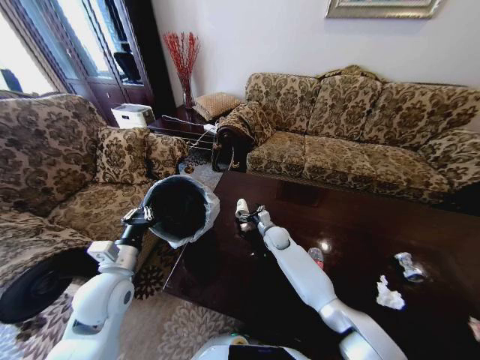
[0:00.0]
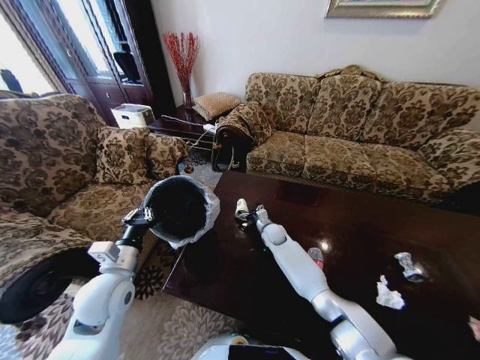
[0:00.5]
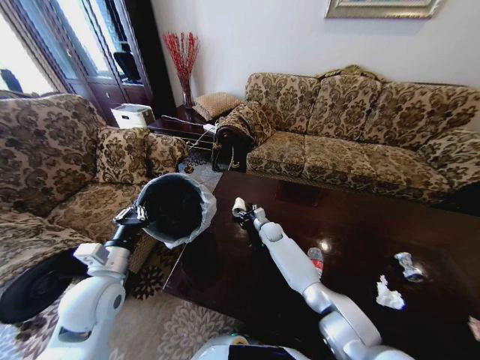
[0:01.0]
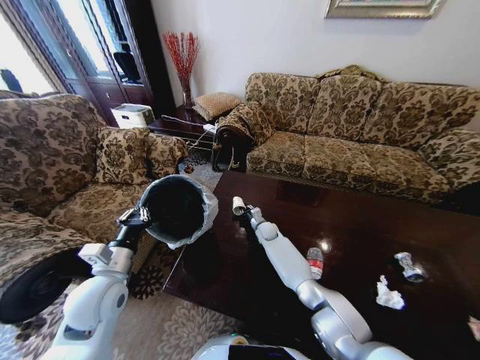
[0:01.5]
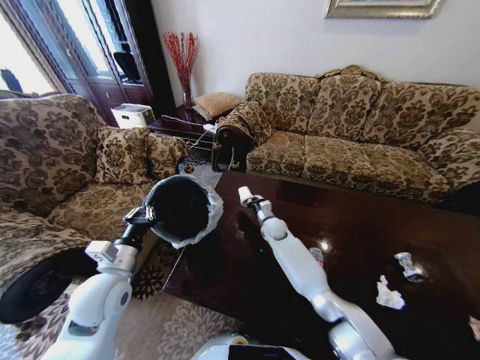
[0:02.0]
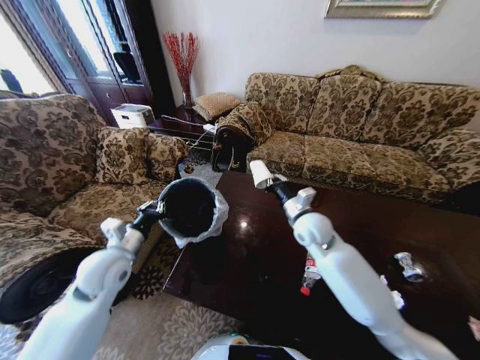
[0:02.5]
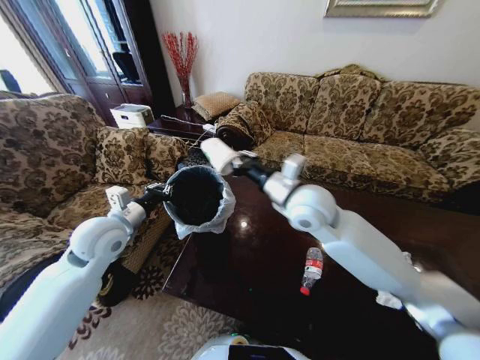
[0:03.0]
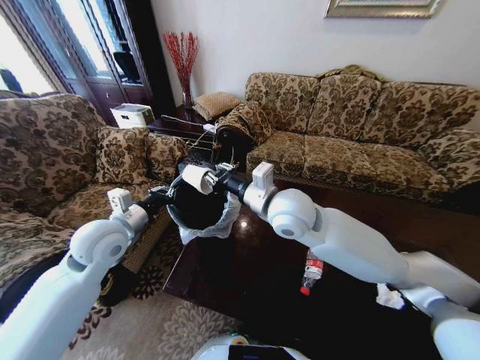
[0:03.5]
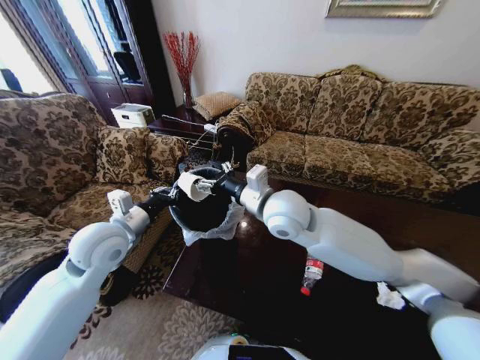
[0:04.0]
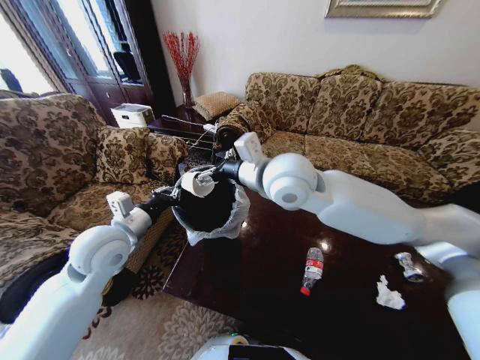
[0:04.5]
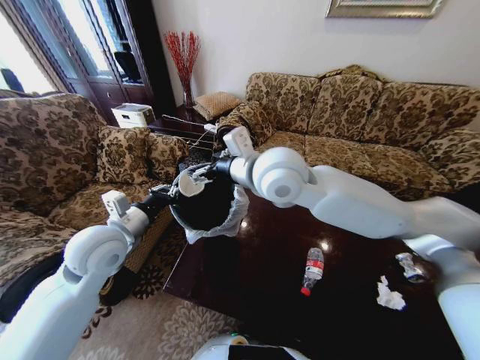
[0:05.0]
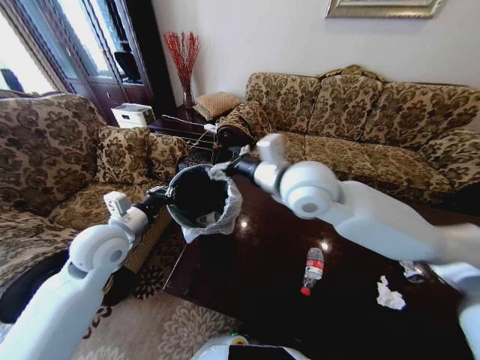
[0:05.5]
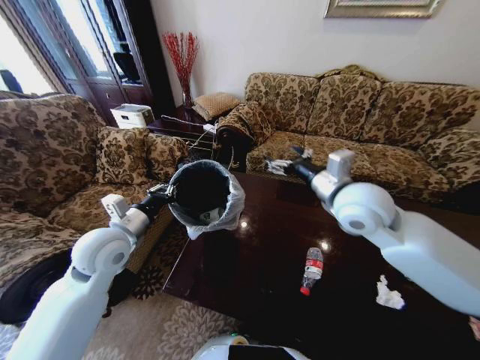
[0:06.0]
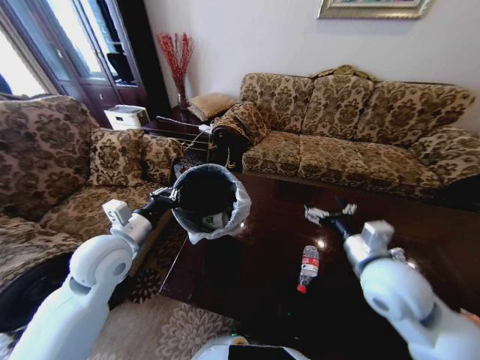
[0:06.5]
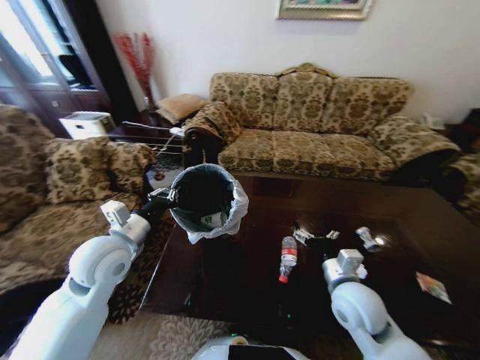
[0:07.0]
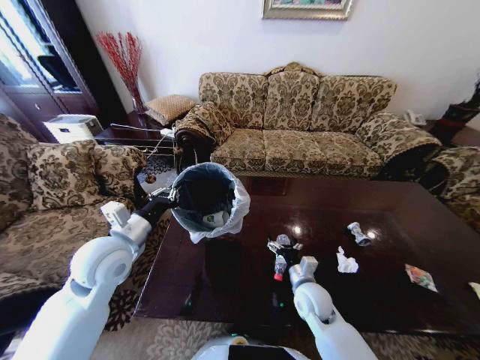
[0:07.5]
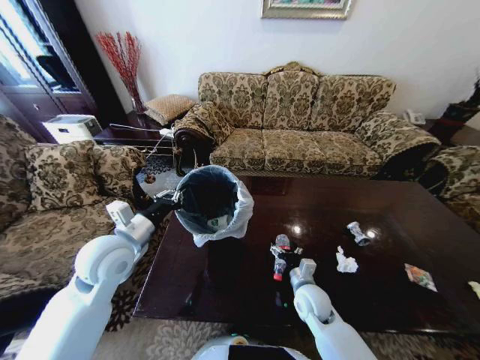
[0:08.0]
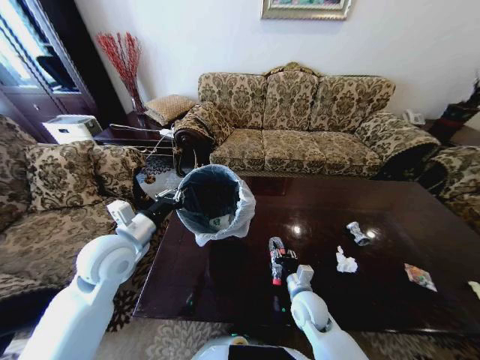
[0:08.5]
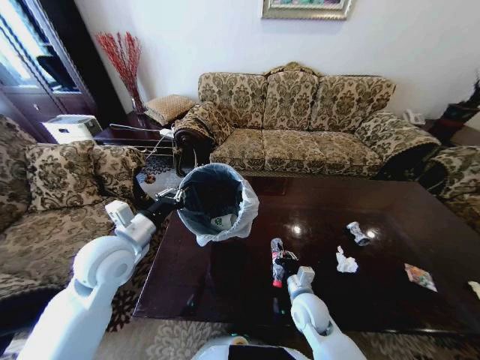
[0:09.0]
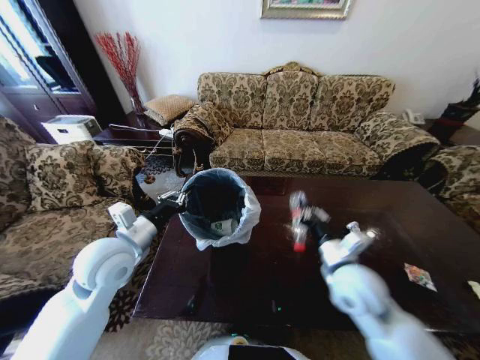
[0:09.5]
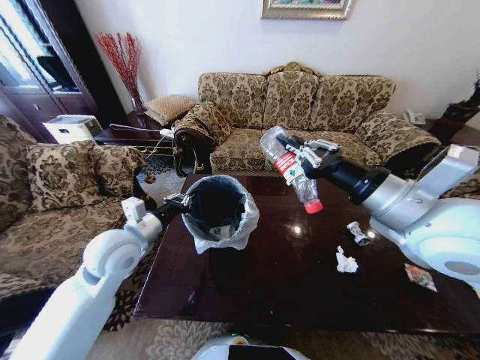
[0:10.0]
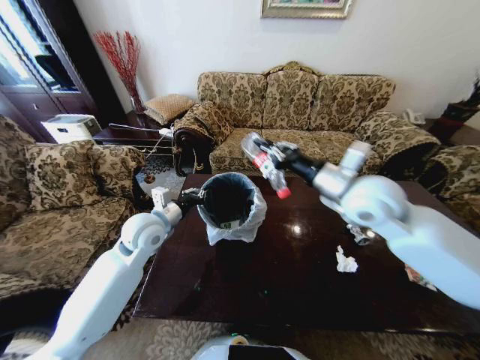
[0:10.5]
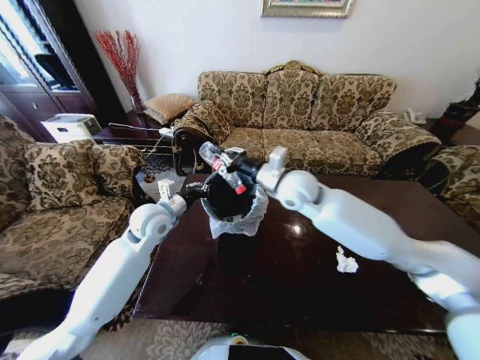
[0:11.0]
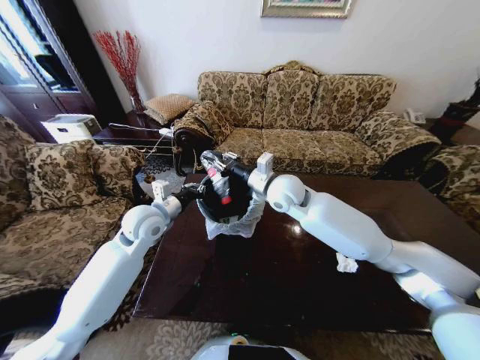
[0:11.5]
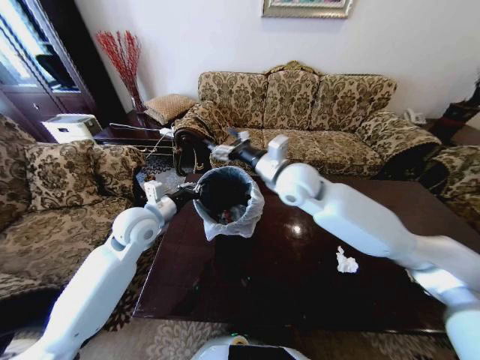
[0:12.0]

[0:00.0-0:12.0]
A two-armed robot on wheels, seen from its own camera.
Task of the whole recording: Move to the front of the table and place the trash on the table into the trash bin.
0:00.0 to 0:02.0: The right gripper closes.
0:02.0 to 0:04.0: The left gripper travels upward and forward by approximately 10 cm; the right gripper shifts some 30 cm upward and backward, and opens.
0:04.0 to 0:06.0: The right gripper goes roughly 15 cm to the right.
0:06.0 to 0:08.0: The right gripper shifts about 35 cm downward.
0:08.0 to 0:10.0: The right gripper heads upward, covering approximately 40 cm, and closes its fingers.
0:10.0 to 0:12.0: The right gripper goes roughly 20 cm forward and to the left, and opens up. Meanwhile the left gripper goes some 5 cm forward.

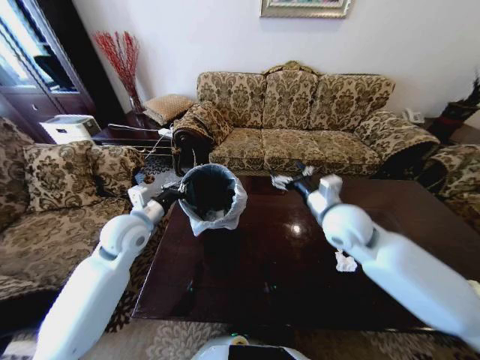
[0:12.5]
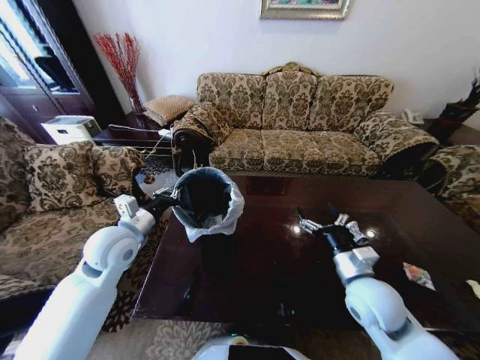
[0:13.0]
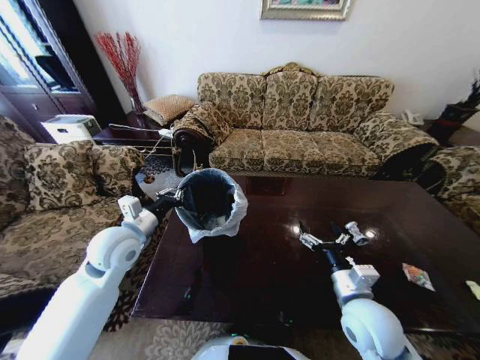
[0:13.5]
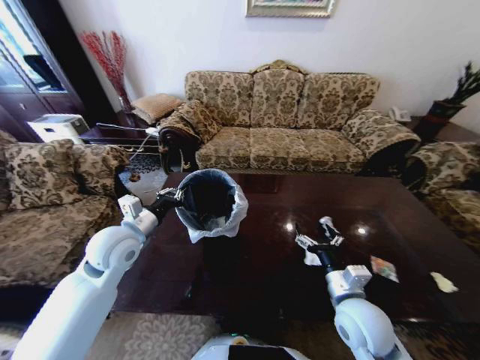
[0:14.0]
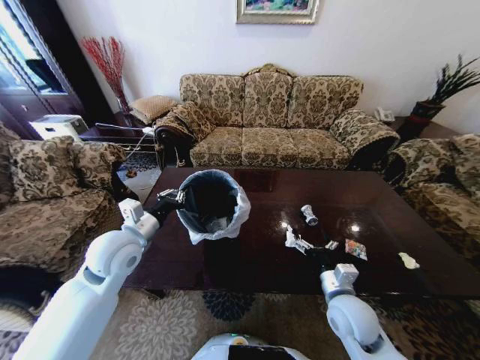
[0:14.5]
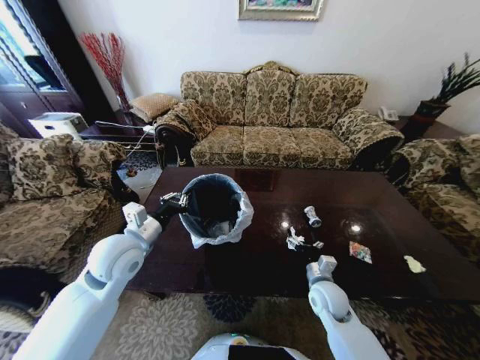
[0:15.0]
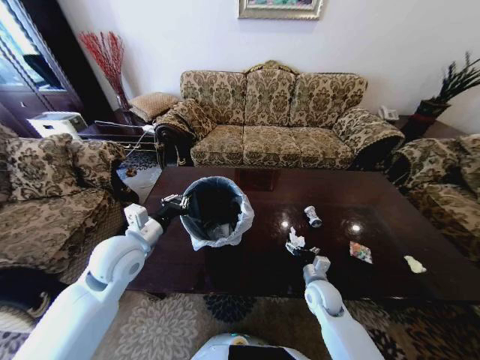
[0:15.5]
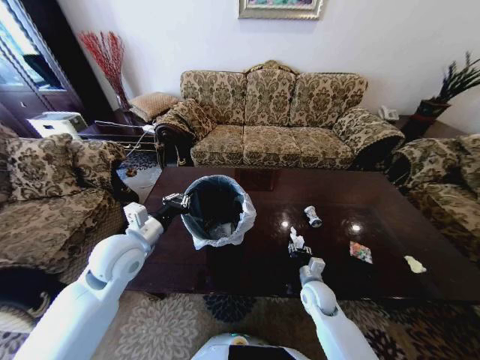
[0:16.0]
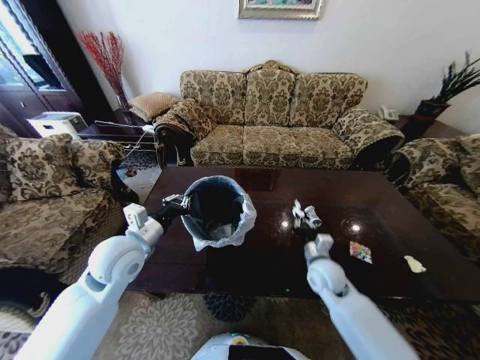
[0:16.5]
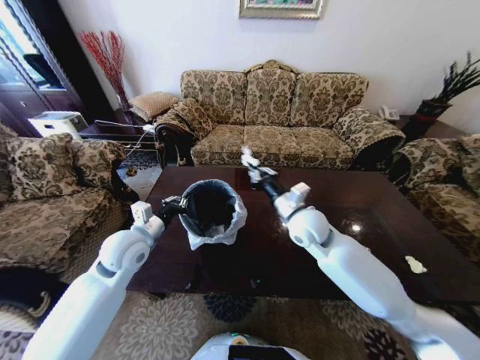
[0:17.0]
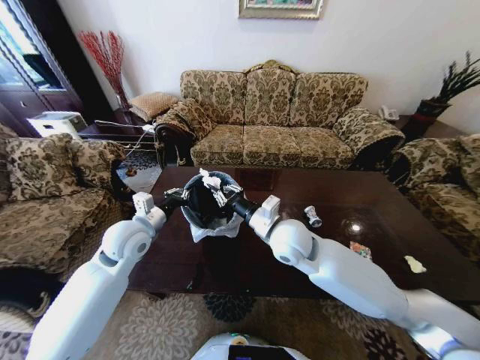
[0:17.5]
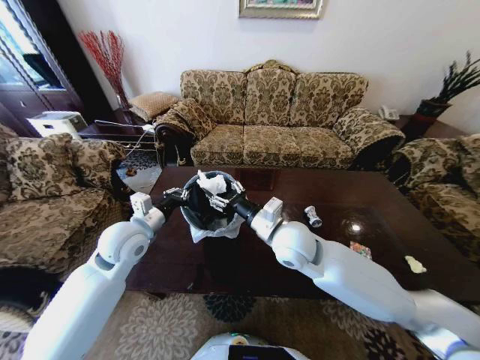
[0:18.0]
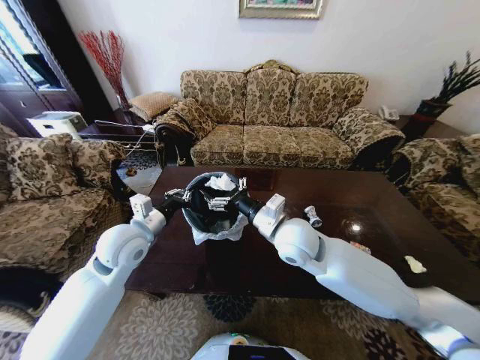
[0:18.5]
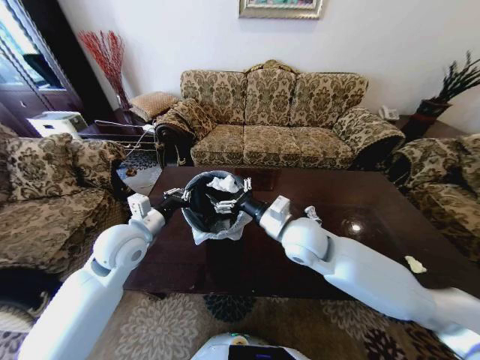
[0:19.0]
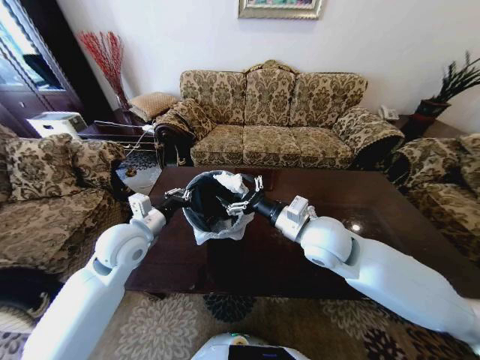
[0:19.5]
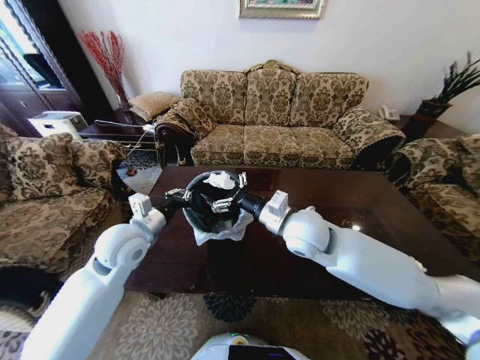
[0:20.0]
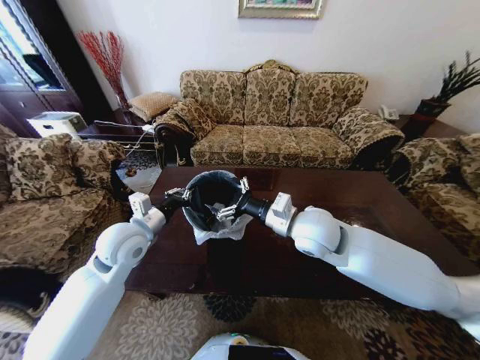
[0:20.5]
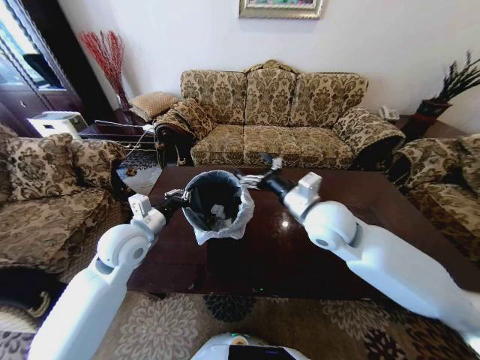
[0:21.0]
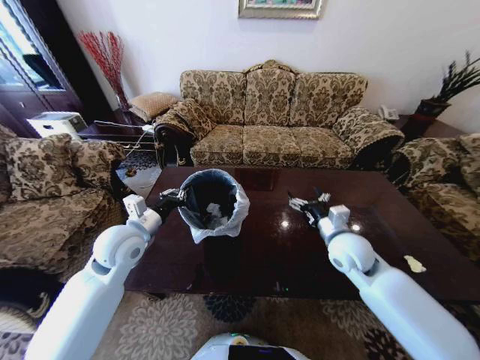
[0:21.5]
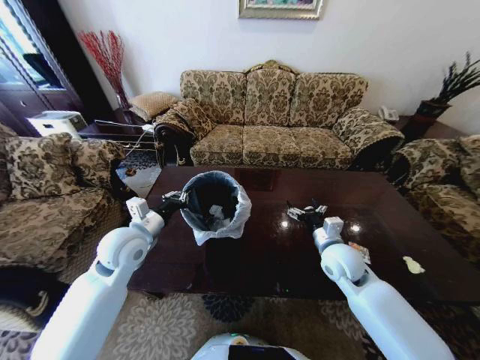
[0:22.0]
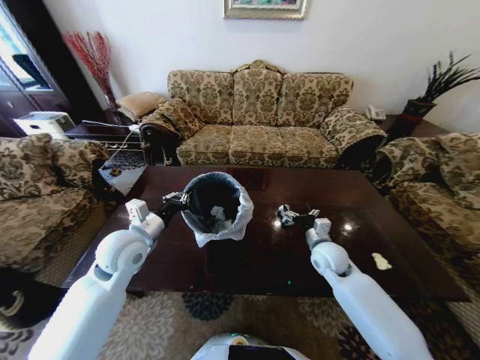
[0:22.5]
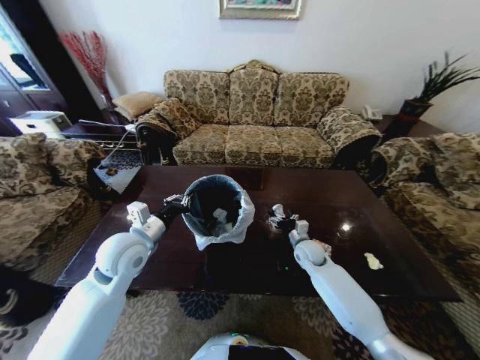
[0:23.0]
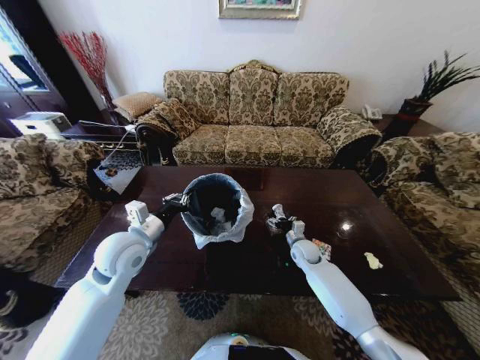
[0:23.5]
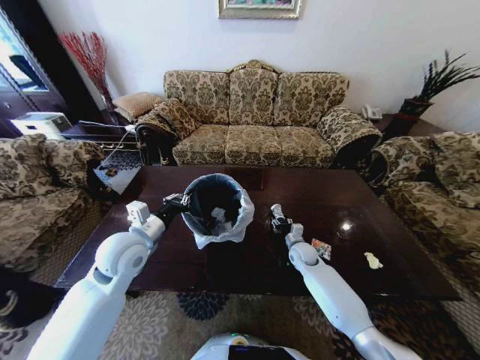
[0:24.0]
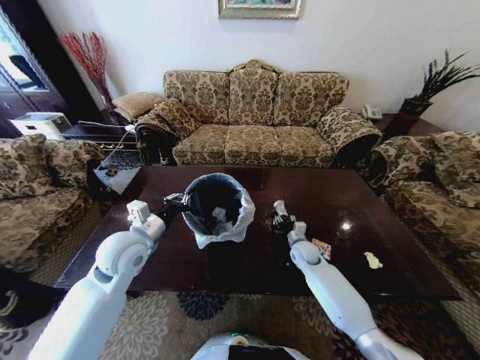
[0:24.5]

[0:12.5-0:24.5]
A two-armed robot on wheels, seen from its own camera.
Task of the whole recording: Move to the front of the table and place the trash on the table into the trash bin.
0:12.5 to 0:14.5: The right gripper goes some 20 cm downward and backward.
0:14.5 to 0:16.5: The right gripper heads forward, covering roughly 10 cm, reaches some 10 cm downward, then returns, and closes up.
0:16.5 to 0:18.5: The right gripper heads upward and to the left, covering about 25 cm, and opens.
0:18.5 to 0:20.5: There are only small adjustments of the grippers.
0:20.5 to 0:22.5: The right gripper travels downward and to the right by about 20 cm.
0:22.5 to 0:24.5: The right gripper travels downward and forward by some 10 cm, and closes.

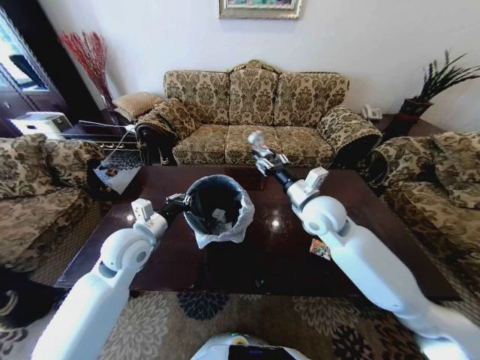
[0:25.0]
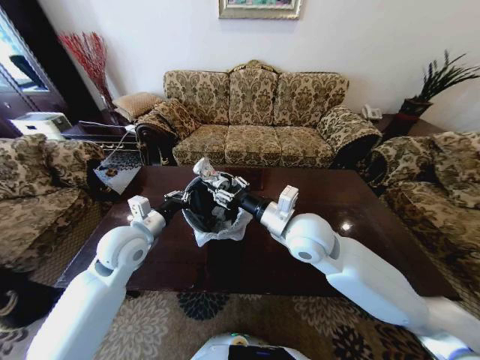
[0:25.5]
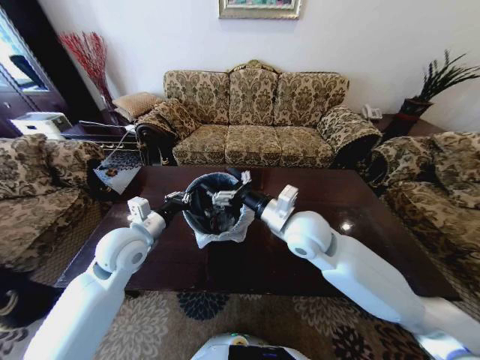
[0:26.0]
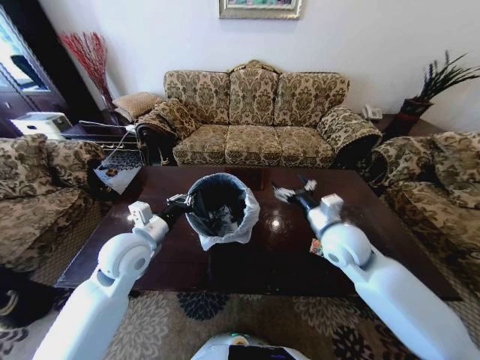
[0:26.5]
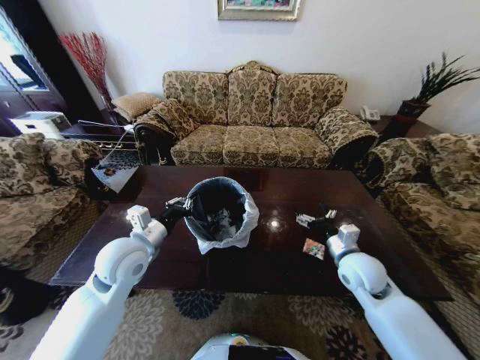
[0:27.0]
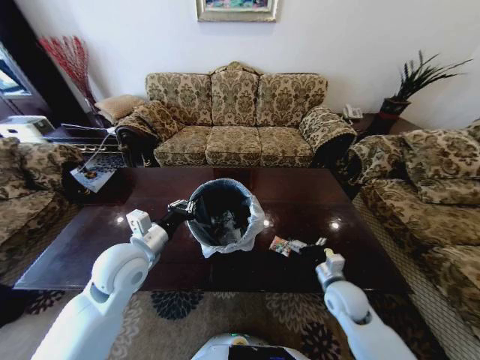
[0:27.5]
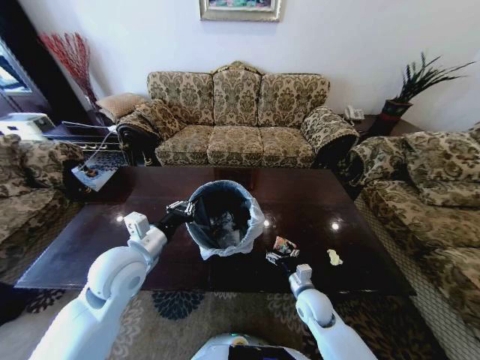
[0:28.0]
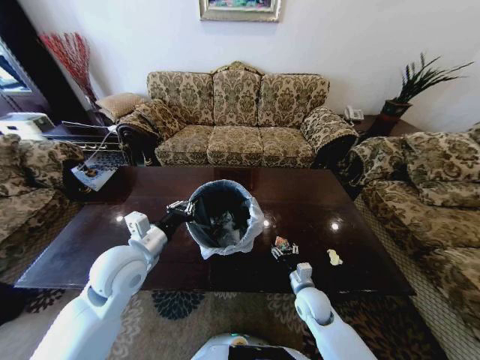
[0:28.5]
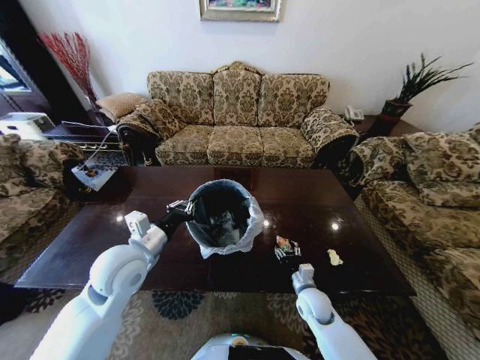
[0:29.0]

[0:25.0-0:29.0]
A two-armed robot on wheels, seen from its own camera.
Task of the whole recording: Move to the front of the table and place the trash on the table into the trash bin.
0:25.0 to 0:27.0: The right gripper heads downward, to the right and backward, covering some 20 cm, and opens up.
0:27.0 to 0:29.0: The right gripper travels downward and to the left by approximately 20 cm, and closes its fingers.
